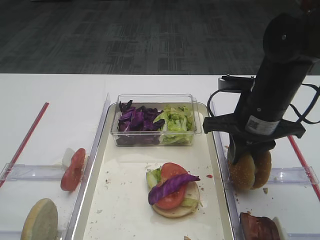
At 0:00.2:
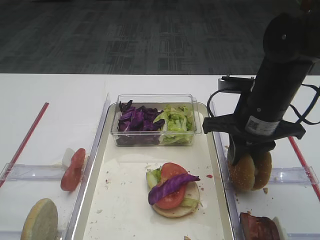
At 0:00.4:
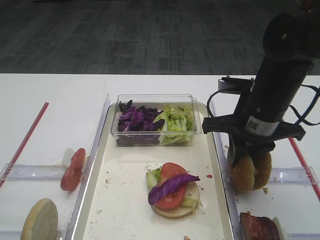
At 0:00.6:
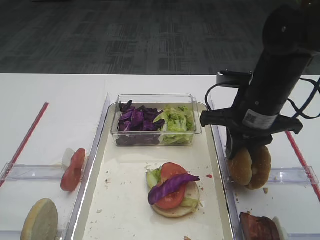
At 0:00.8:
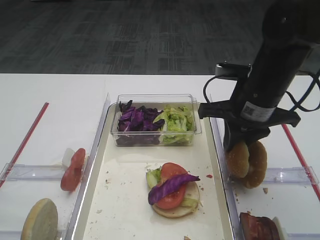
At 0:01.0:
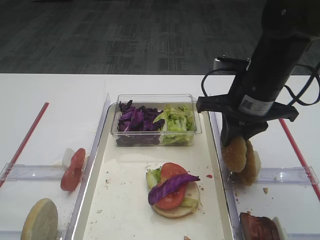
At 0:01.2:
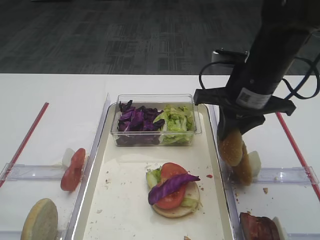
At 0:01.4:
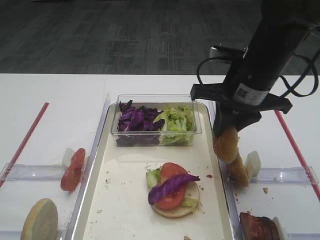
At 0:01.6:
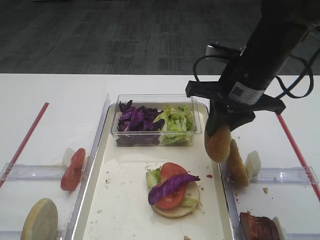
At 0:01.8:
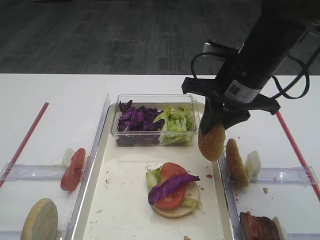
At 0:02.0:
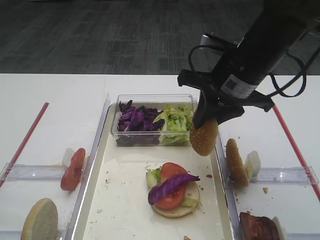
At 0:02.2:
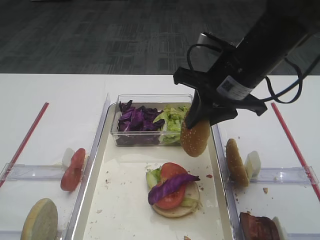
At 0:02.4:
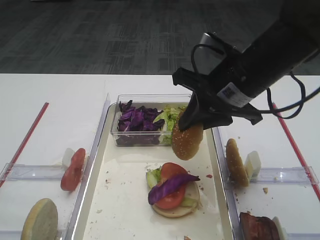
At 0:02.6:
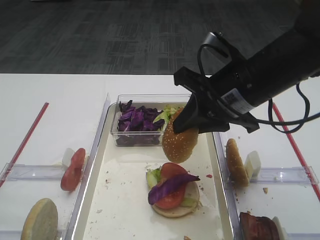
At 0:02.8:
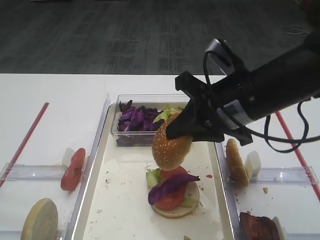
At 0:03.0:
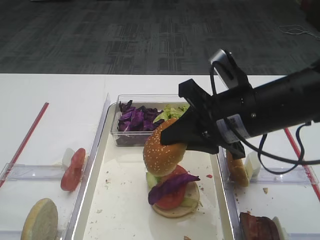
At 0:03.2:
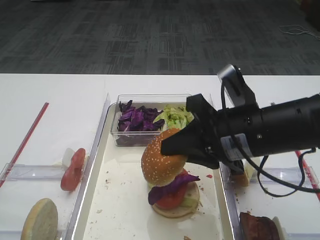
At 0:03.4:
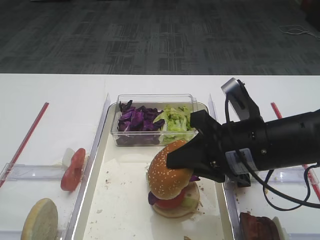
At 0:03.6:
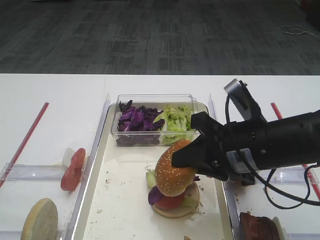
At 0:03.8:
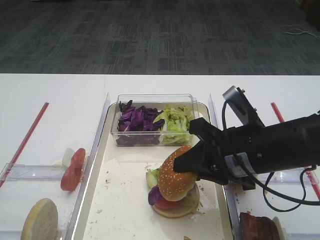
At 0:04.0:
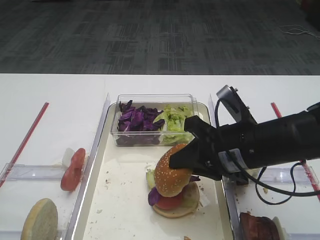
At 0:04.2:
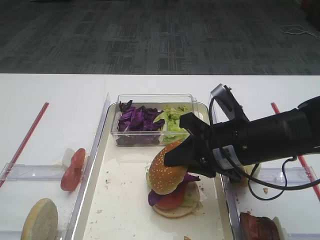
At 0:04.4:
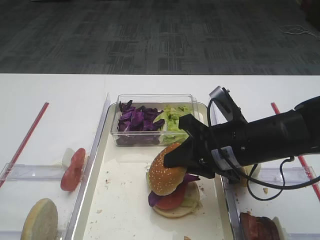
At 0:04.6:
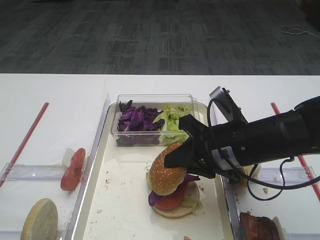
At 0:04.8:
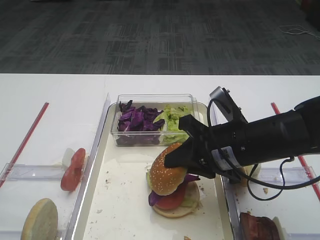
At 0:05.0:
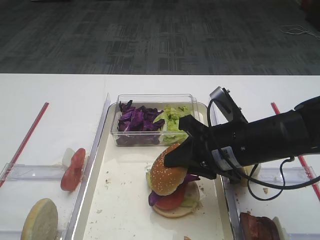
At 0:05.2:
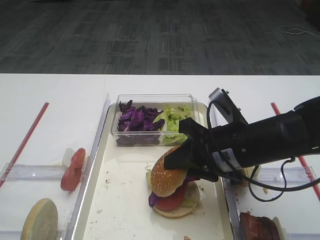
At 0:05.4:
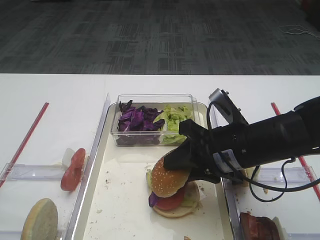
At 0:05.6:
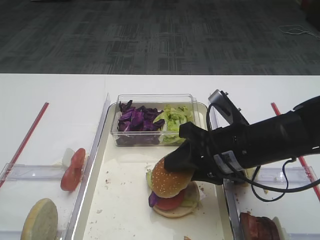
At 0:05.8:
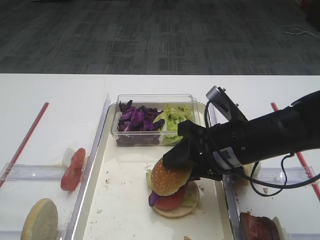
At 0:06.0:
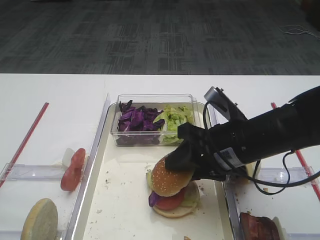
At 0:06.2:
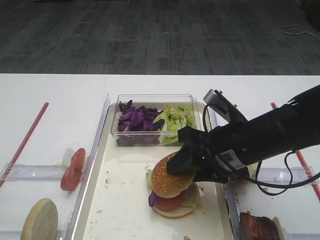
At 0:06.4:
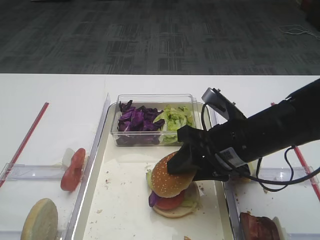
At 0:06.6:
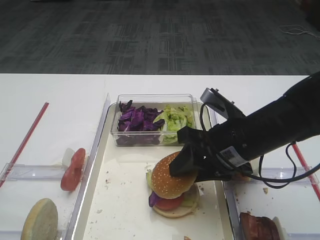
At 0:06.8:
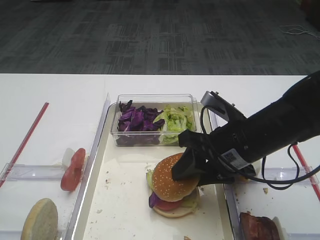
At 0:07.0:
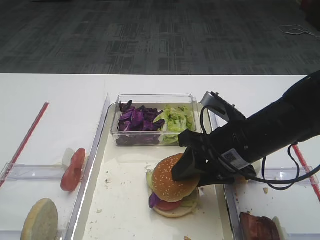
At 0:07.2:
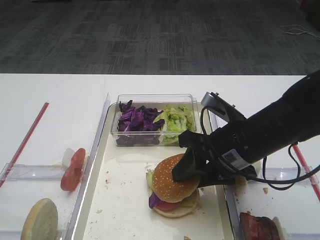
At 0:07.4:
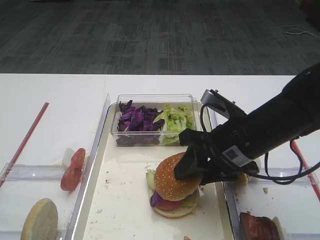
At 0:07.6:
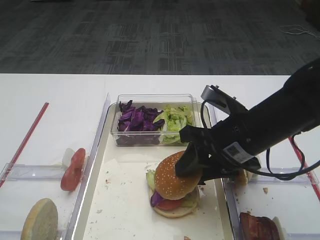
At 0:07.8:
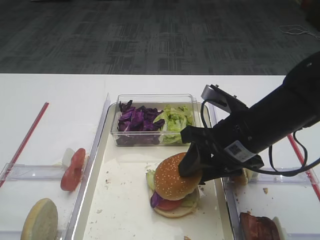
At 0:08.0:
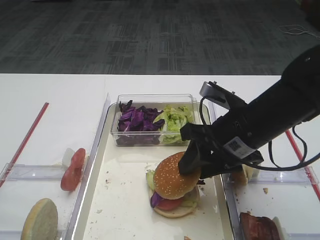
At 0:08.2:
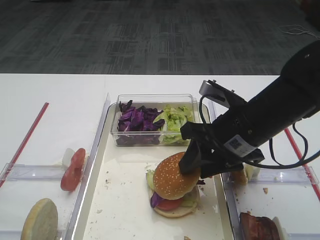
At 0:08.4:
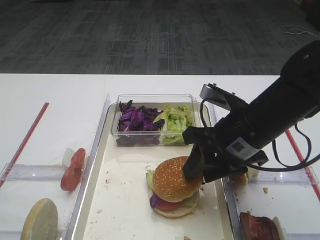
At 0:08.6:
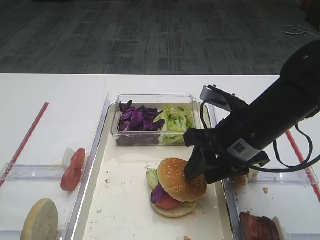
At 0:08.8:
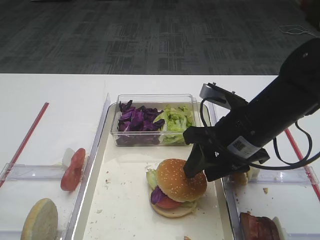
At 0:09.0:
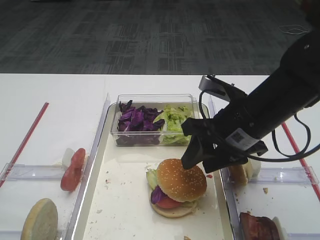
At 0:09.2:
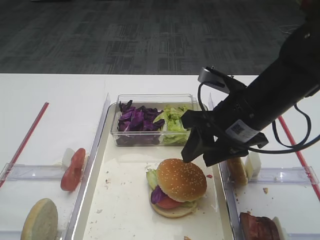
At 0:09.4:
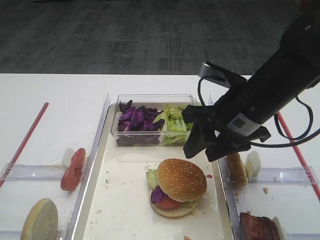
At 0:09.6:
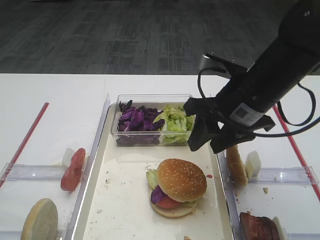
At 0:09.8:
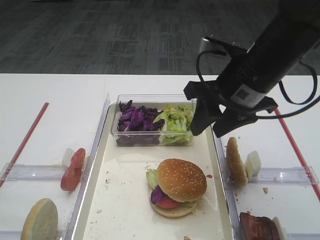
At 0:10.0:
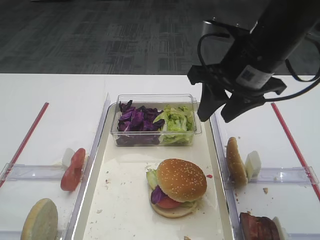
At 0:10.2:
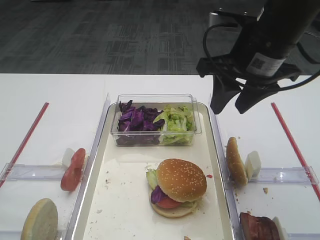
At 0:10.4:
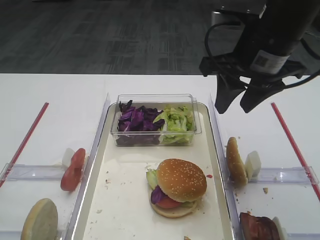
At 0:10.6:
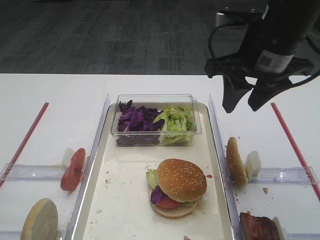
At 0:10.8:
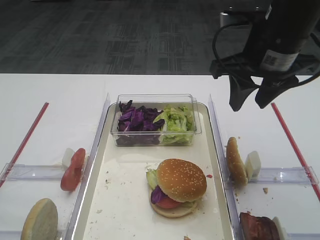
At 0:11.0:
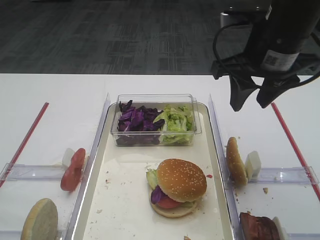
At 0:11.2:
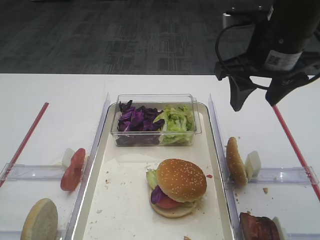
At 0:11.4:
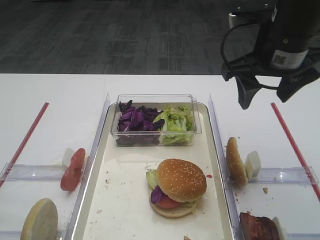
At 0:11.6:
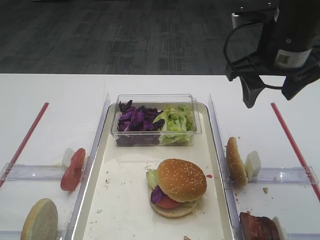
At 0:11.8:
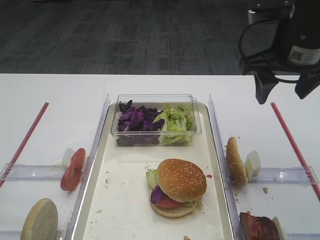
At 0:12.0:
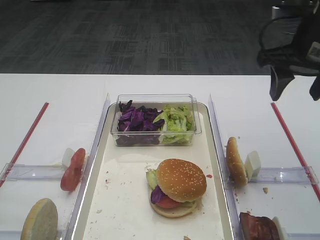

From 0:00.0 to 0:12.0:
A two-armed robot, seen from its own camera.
Step, from 0:01.6 to 0:09.2: Place the hamburger lid on the purple cabbage with the right gripper.
From 0:00.0 to 0:01.6: The right gripper moves roughly 5 cm.
From 0:01.6 to 0:03.0: The right gripper shifts some 5 cm backward.
From 0:03.0 to 0:04.4: The right gripper heads downward, covering approximately 5 cm.
From 0:04.4 to 0:06.0: The right gripper opens its fingers.
From 0:06.0 to 0:07.6: The grippers move only a little.
From 0:07.6 to 0:09.0: The grippers move only a little.
From 0:09.0 to 0:10.4: The right gripper heads upward, covering approximately 10 cm.
From 0:10.4 to 0:12.0: The right gripper is displaced to the right by some 10 cm.

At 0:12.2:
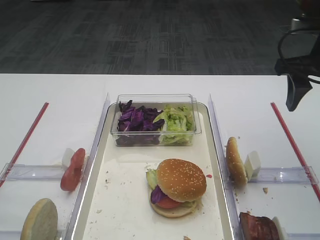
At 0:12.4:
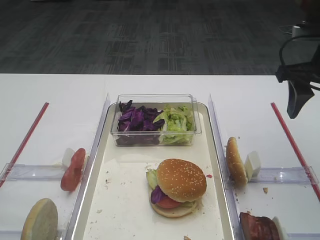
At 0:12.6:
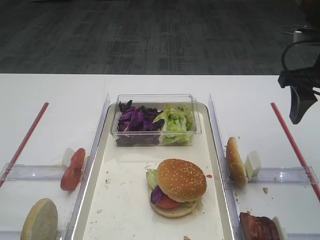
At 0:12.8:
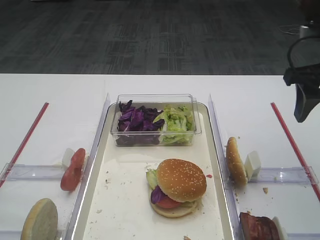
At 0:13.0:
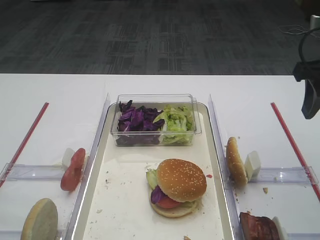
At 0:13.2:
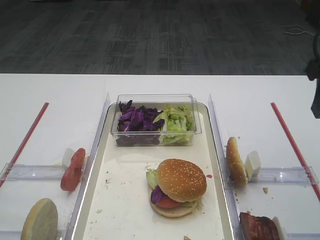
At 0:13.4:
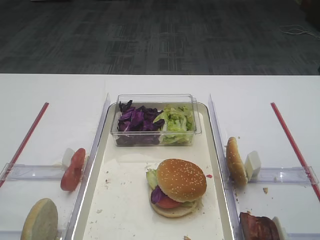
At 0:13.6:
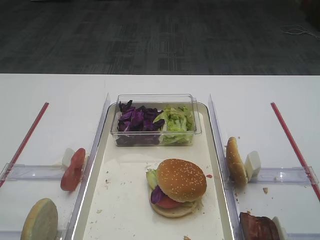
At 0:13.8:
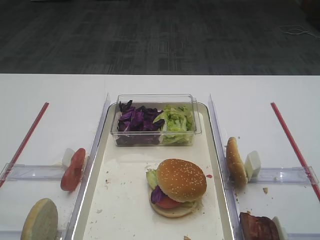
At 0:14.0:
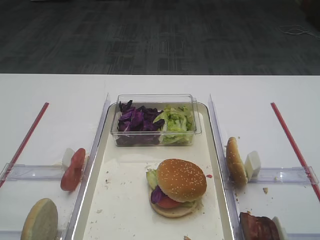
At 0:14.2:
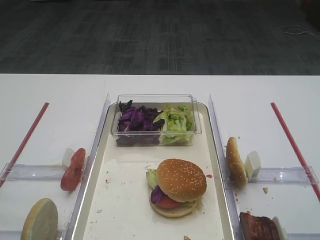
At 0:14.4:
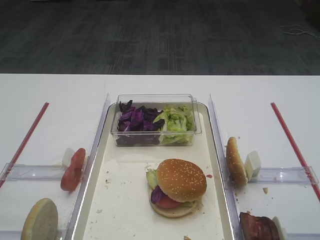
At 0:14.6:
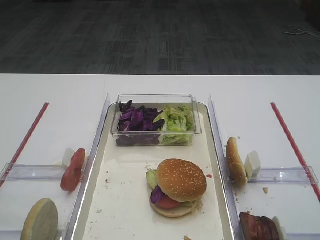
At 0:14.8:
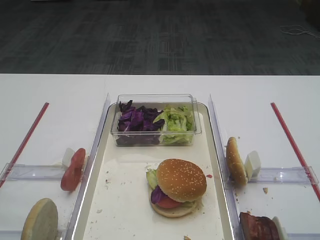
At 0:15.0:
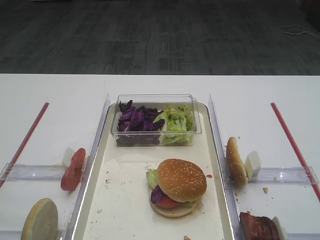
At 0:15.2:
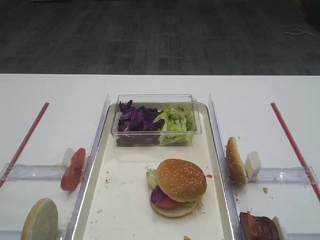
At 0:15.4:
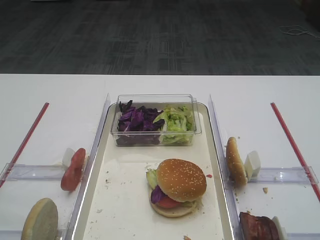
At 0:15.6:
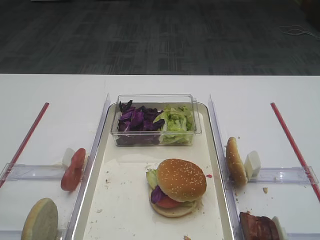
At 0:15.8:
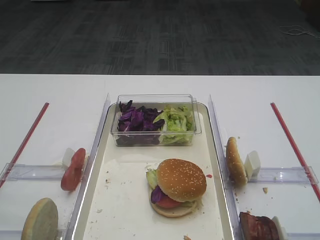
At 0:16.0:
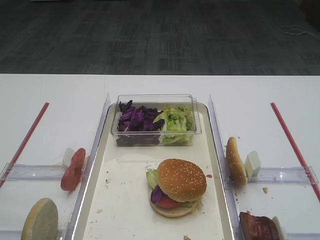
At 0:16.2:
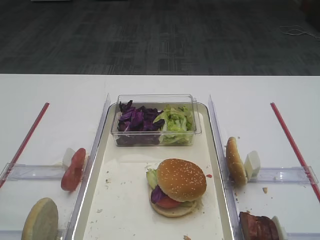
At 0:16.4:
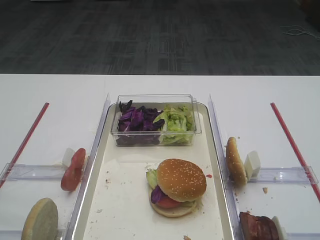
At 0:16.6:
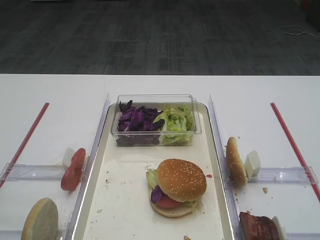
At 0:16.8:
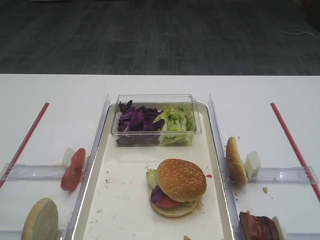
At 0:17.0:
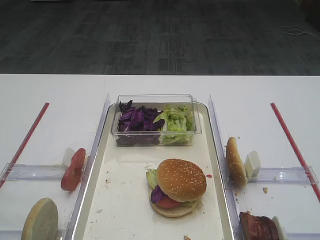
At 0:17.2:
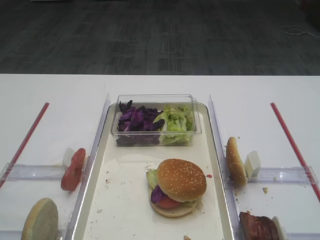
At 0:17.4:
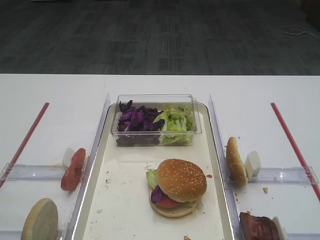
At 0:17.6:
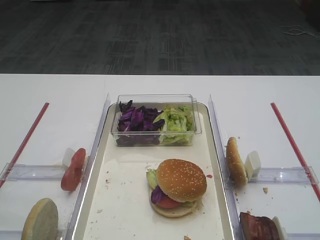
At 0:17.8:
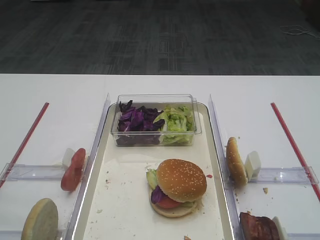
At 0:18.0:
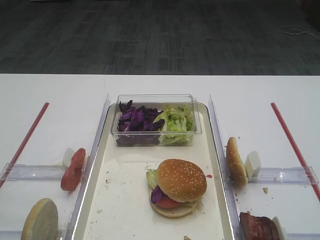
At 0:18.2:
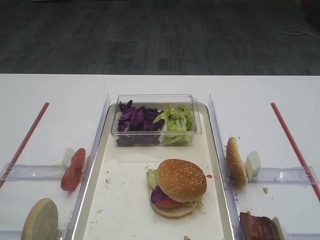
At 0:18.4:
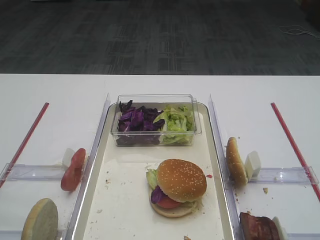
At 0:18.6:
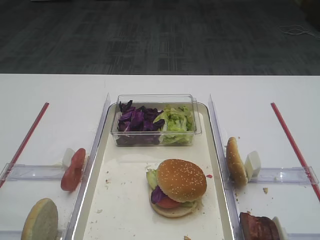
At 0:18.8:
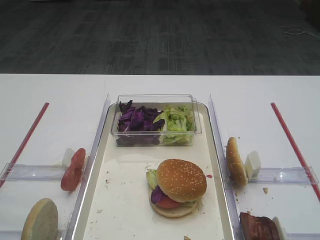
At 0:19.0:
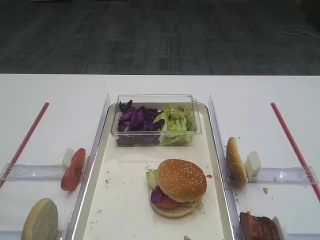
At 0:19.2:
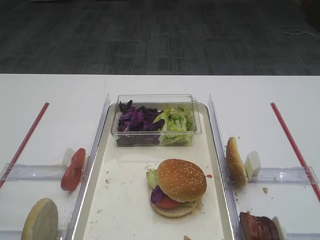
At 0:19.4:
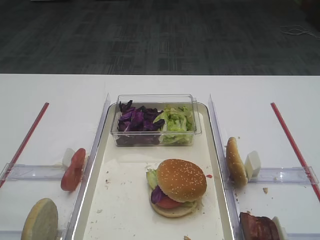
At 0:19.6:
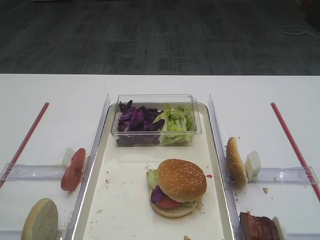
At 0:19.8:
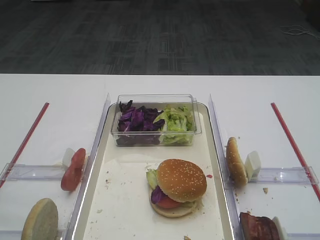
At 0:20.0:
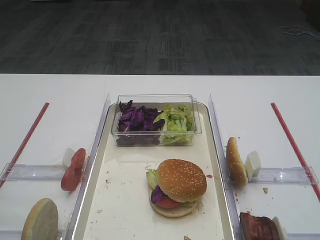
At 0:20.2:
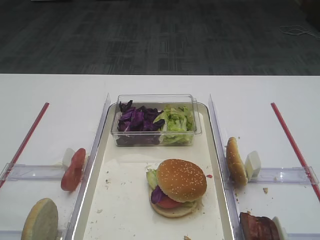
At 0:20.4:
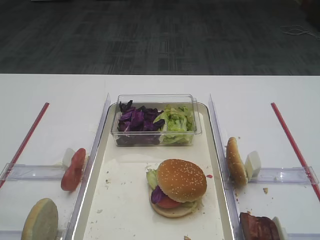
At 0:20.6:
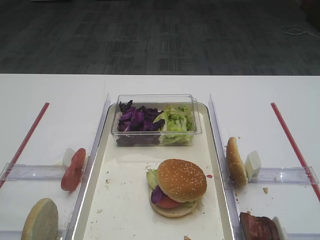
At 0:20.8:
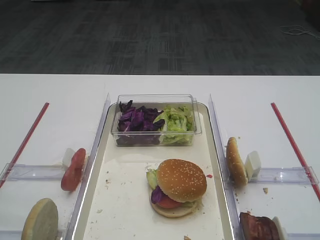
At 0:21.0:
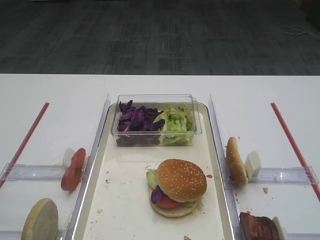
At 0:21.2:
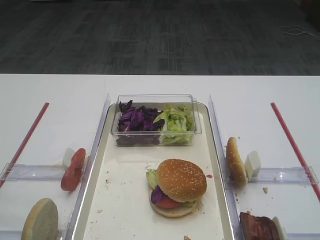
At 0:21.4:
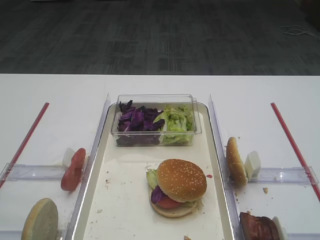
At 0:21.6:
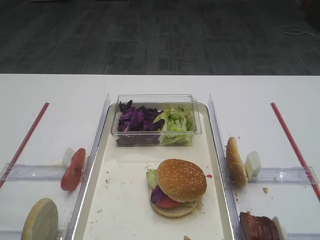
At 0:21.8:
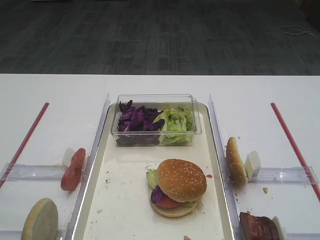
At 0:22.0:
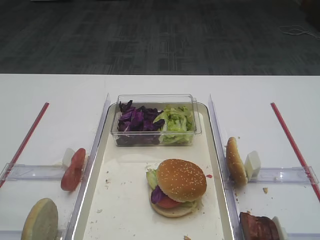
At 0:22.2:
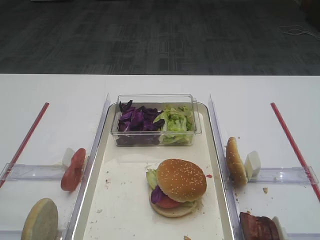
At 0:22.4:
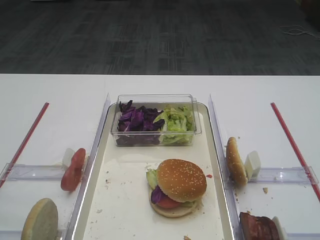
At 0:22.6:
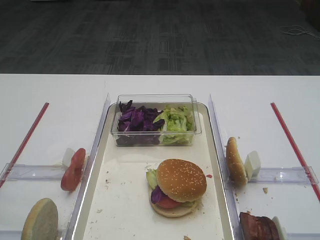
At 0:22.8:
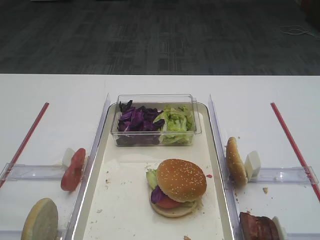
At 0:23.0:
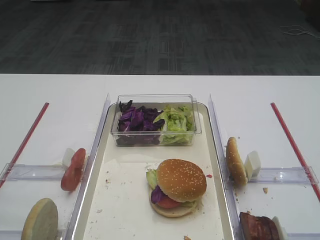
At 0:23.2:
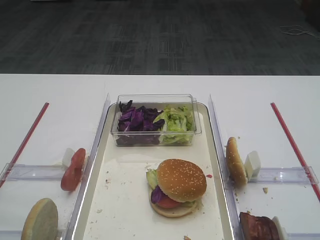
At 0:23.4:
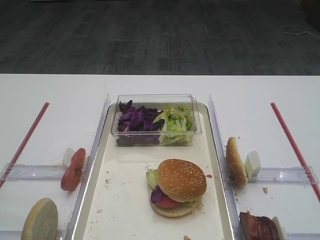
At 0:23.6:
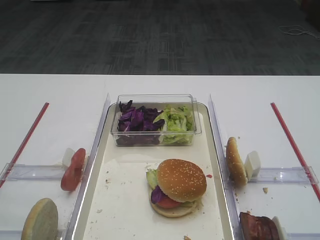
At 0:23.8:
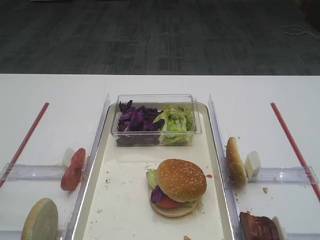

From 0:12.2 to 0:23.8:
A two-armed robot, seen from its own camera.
From 0:12.2 to 0:13.6: The right gripper goes about 10 cm backward.
From 0:19.4 to 0:23.8: Both grippers stay put.
